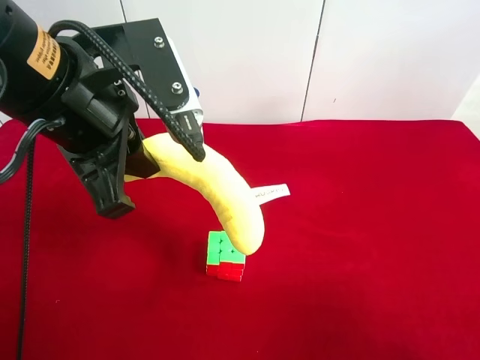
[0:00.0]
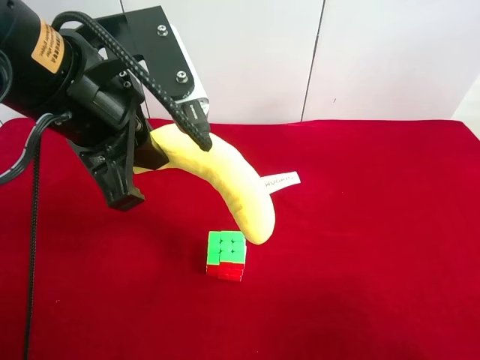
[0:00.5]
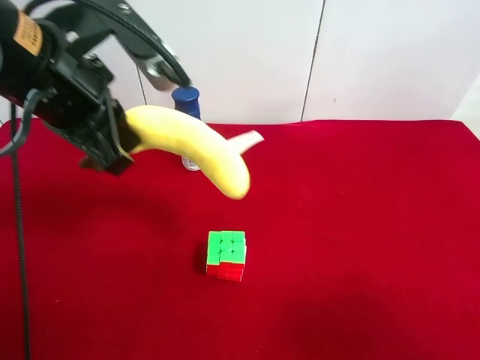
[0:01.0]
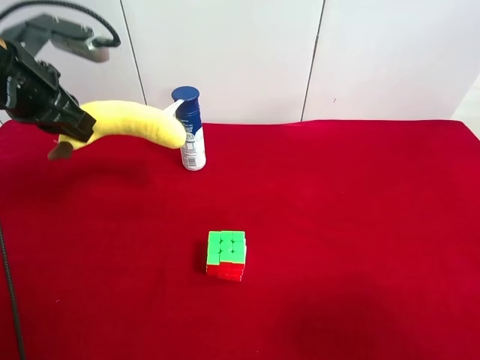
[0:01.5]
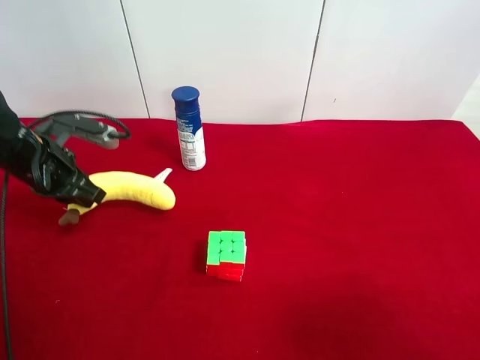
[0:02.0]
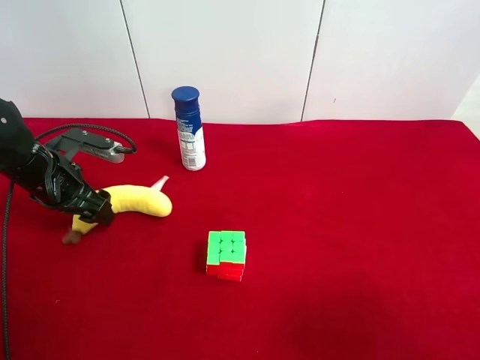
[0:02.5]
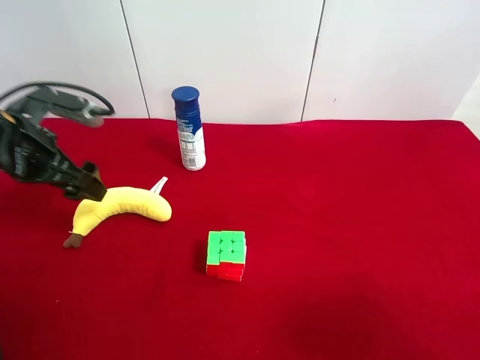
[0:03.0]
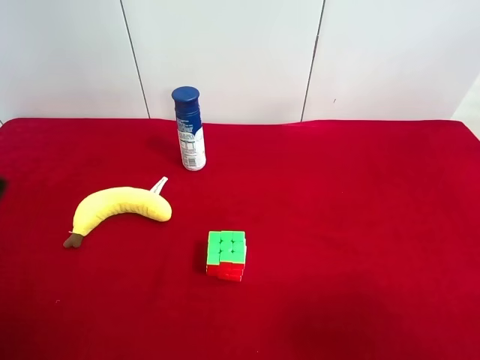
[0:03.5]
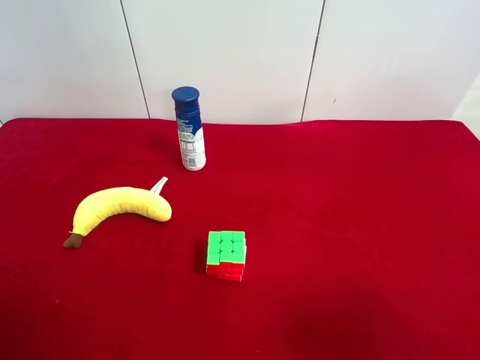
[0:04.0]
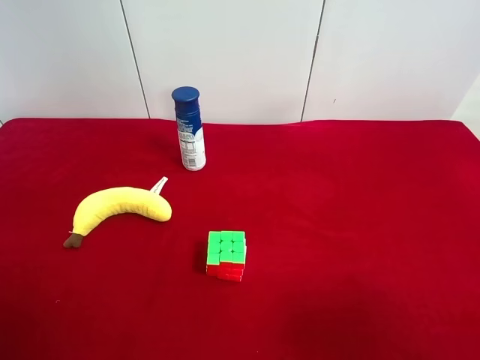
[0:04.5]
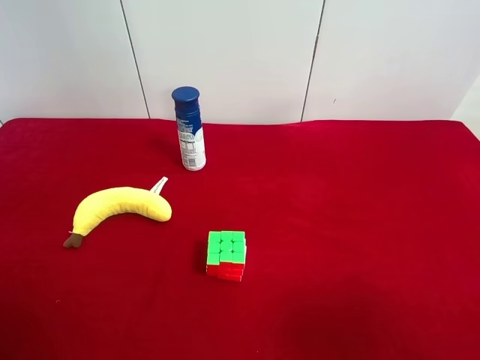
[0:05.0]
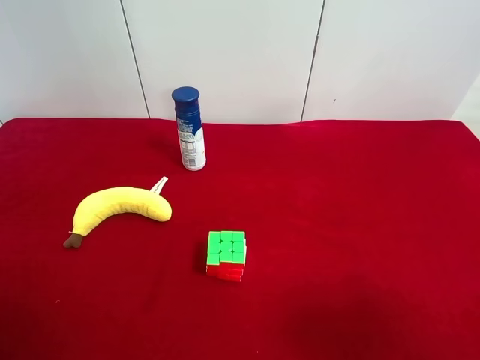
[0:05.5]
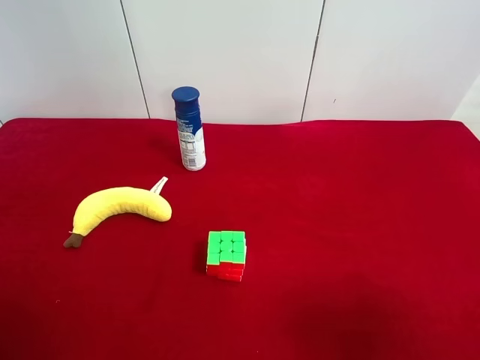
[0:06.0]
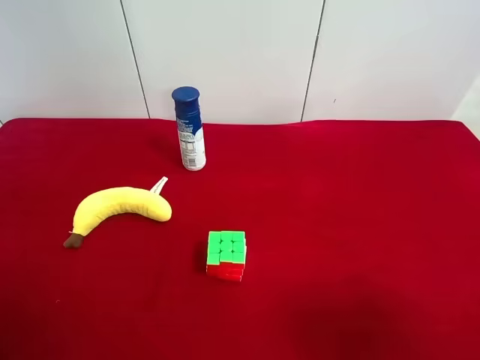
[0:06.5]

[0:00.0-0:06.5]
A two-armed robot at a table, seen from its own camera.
Task of the whole recording: use the right gripper to pick up the item and transfer it from the right gripper to the left gripper.
Step, 0:00.0 to 0:02.5: The left gripper places plush banana on the left side of the table.
0:00.0 to 0:02.0: The left gripper travels downward, to the left and forward by some 25 cm.
0:02.0 to 0:04.5: The left gripper heads backward and upward, covering some 35 cm, and opens its fingers.
